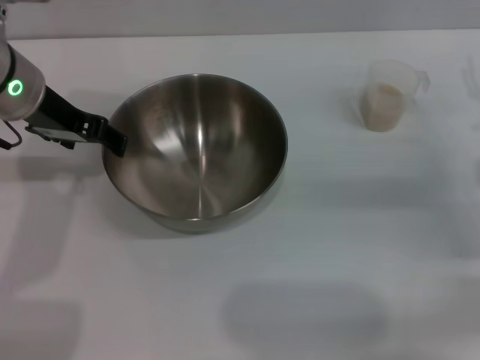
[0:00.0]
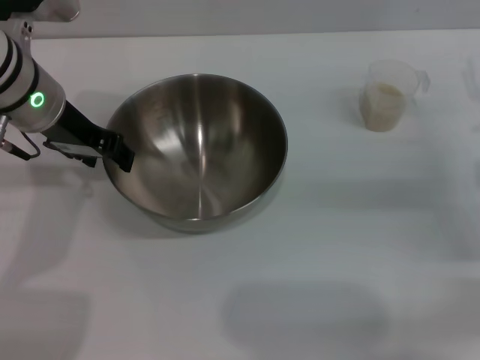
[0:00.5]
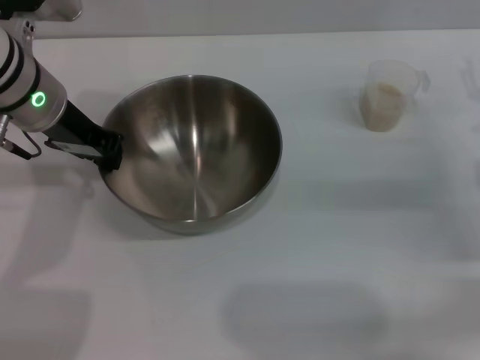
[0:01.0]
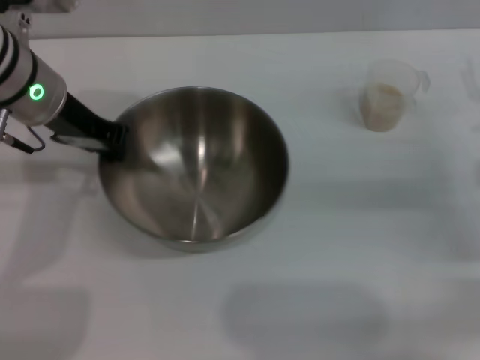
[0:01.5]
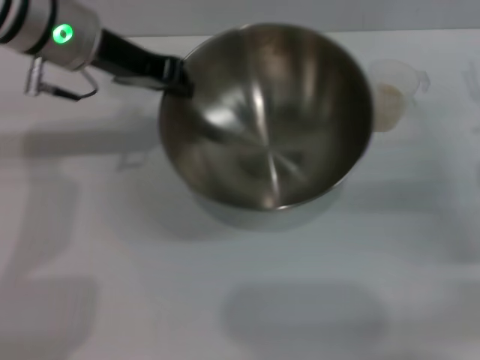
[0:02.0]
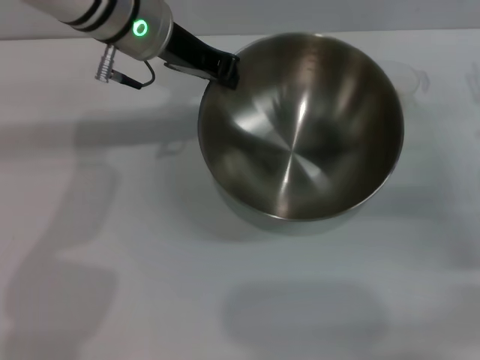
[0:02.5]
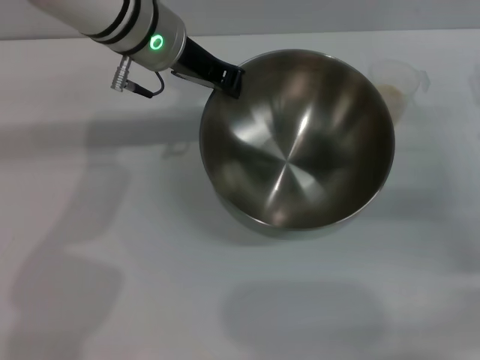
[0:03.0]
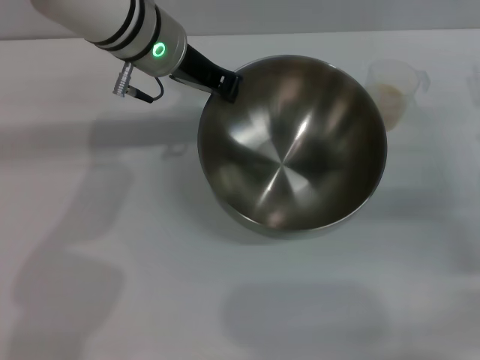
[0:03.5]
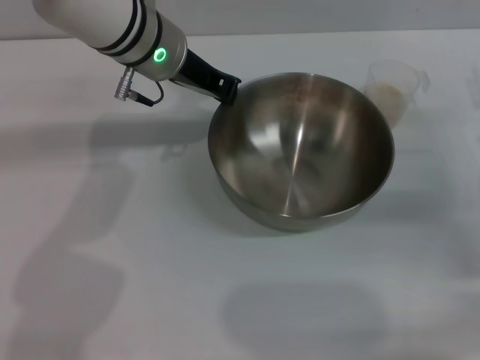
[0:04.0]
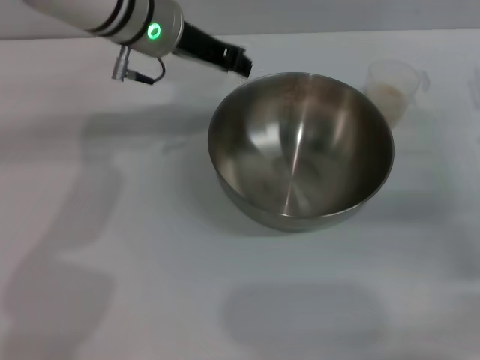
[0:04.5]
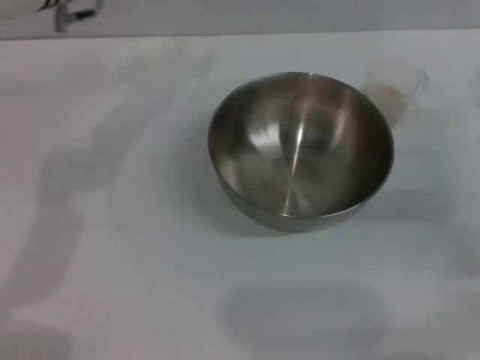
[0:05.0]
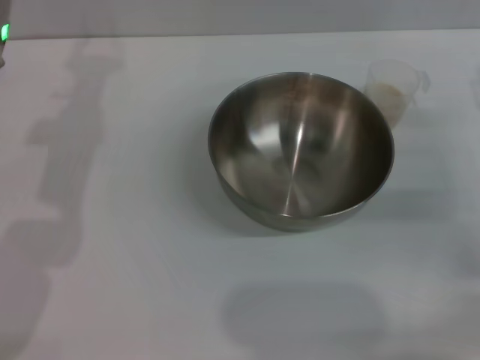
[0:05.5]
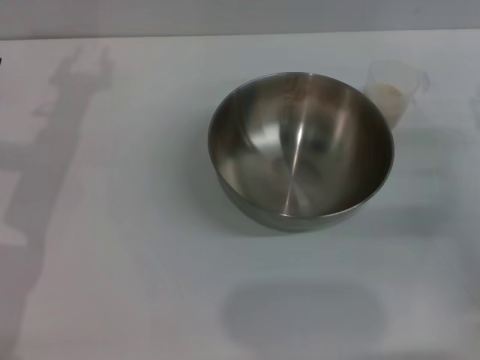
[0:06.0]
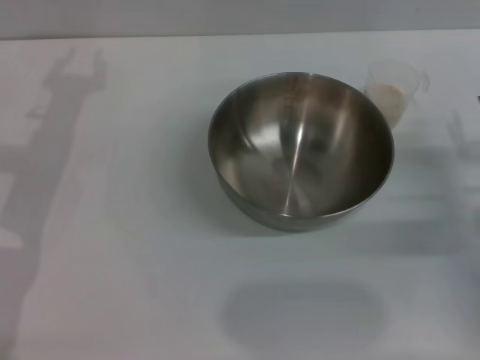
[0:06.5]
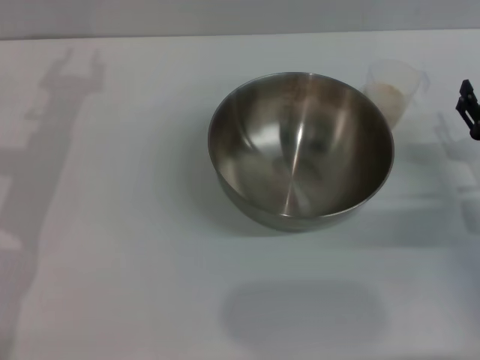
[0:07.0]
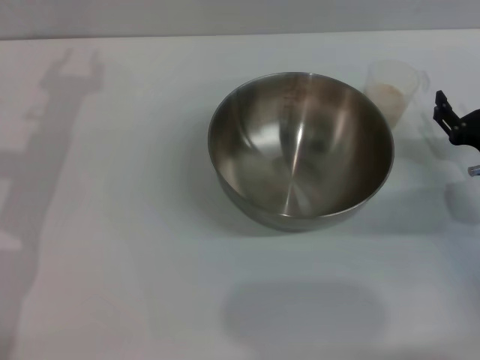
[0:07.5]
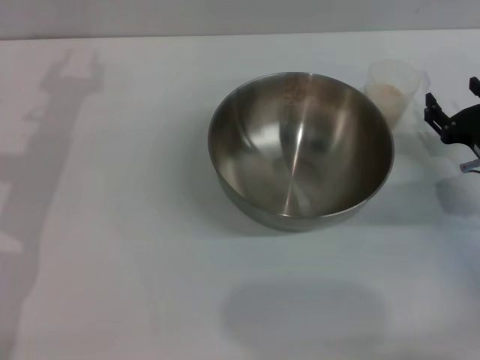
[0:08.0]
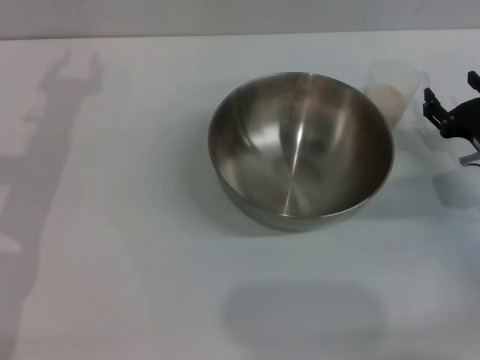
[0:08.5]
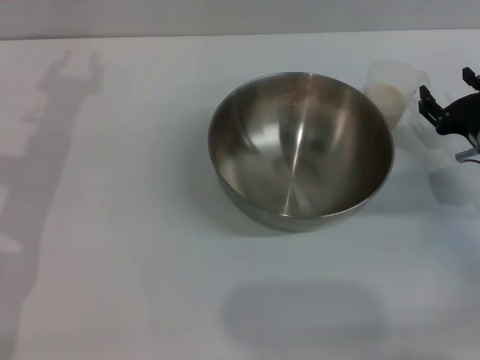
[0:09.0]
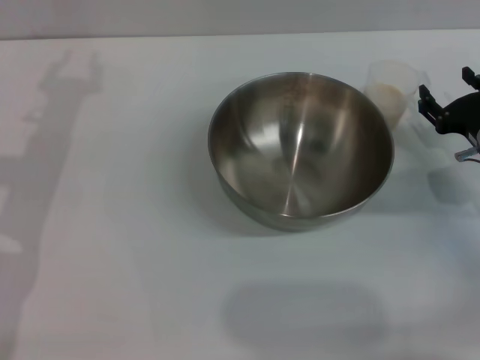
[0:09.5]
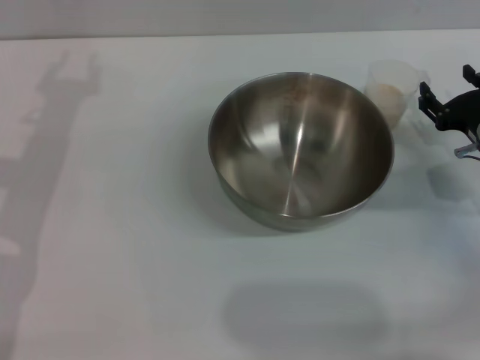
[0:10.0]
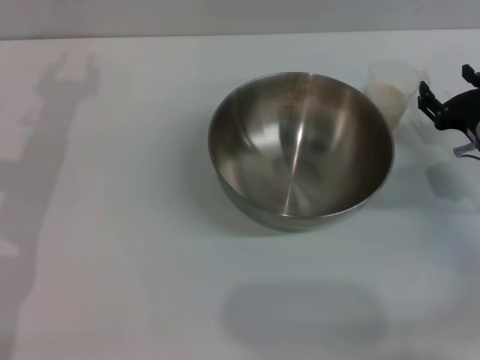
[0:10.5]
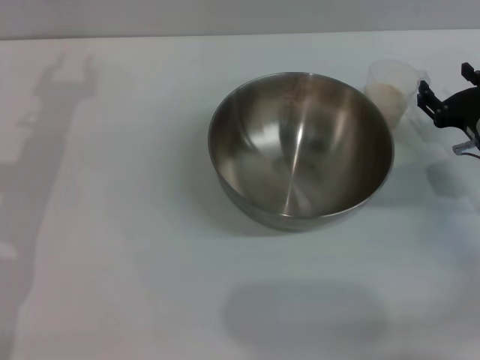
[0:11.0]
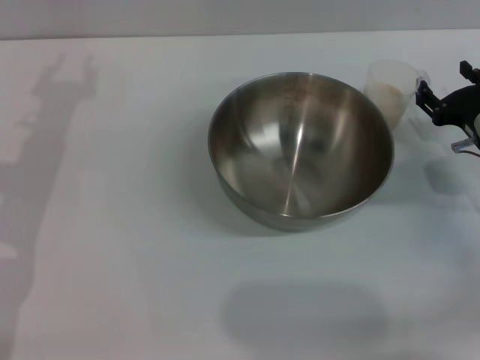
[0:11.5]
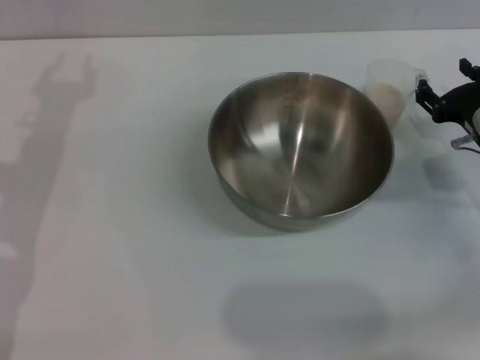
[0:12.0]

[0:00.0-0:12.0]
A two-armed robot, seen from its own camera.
Task of the whole recording: Place the bowl in the middle of the table with one hand and pour the rice from the grain cup into it with the other hand.
Step, 0:02.0 to 0:04.5: Place the bowl in the center of view with the left gripper.
0:00.0 to 0:02.0: The left gripper moves about 5 cm, and closes its fingers.
0:02.0 to 0:04.0: The left gripper moves to the right, roughly 5 cm.
0:04.0 to 0:06.0: The left gripper heads to the left, covering approximately 15 cm, and opens.
0:08.0 to 0:10.0: The grippers move only a little.
0:10.0 to 0:12.0: Neither gripper changes place.

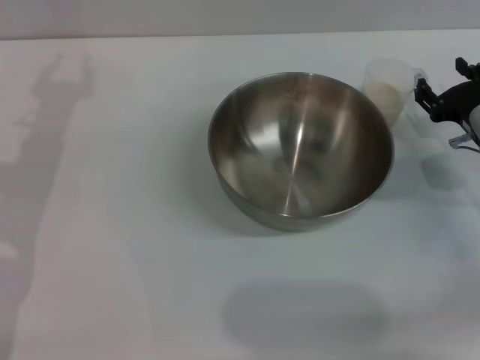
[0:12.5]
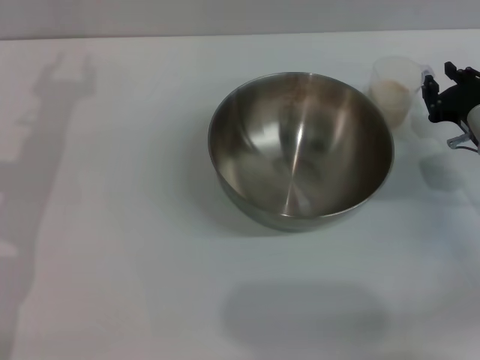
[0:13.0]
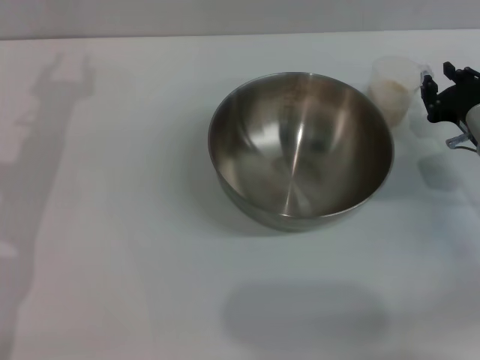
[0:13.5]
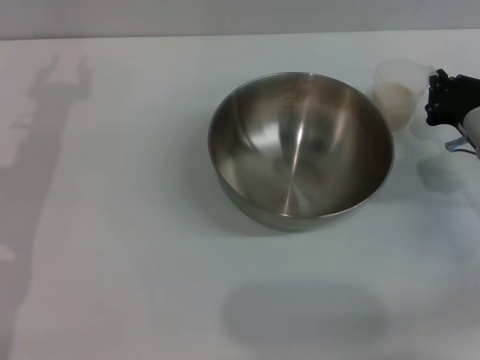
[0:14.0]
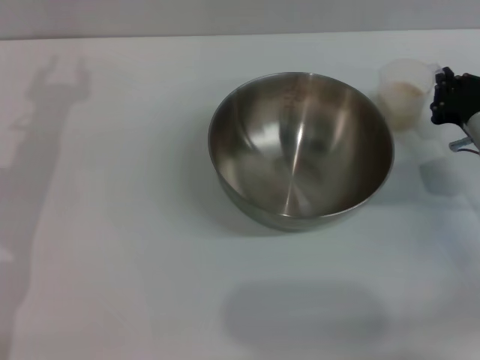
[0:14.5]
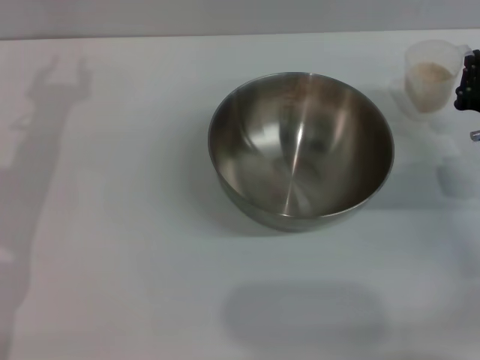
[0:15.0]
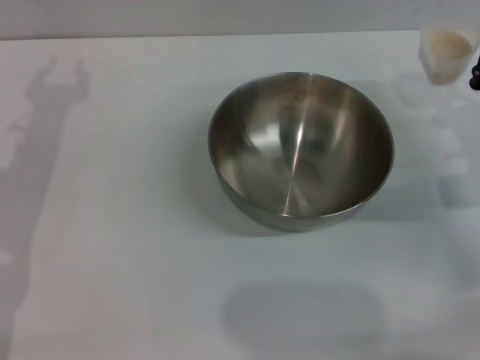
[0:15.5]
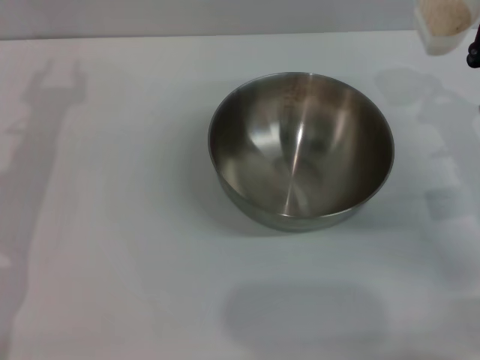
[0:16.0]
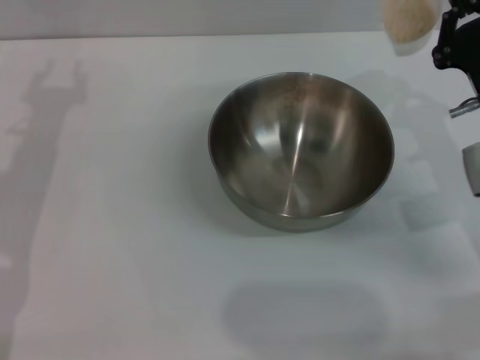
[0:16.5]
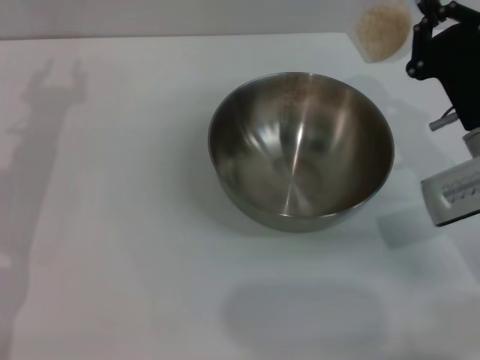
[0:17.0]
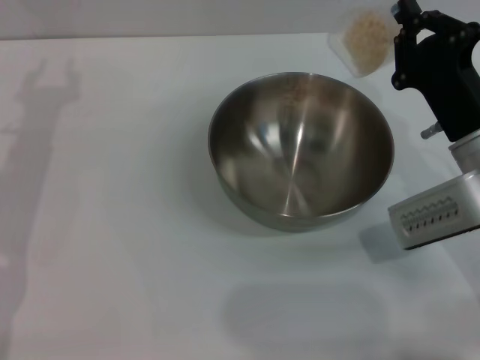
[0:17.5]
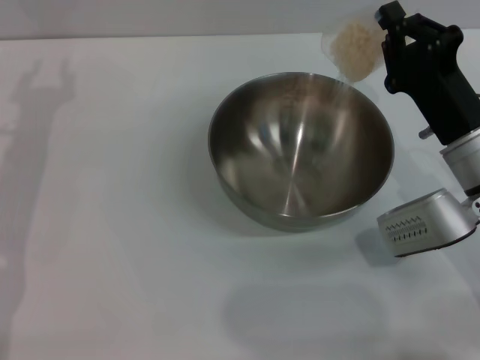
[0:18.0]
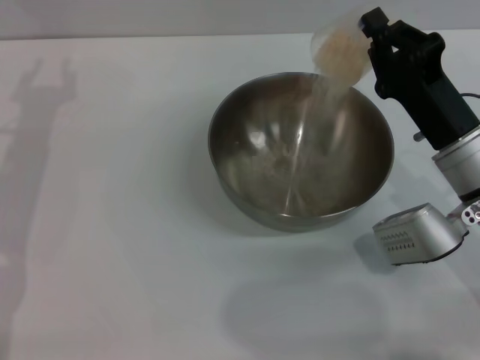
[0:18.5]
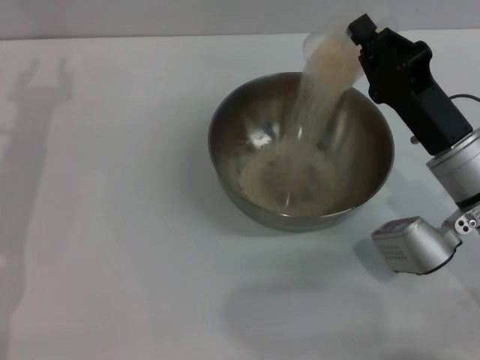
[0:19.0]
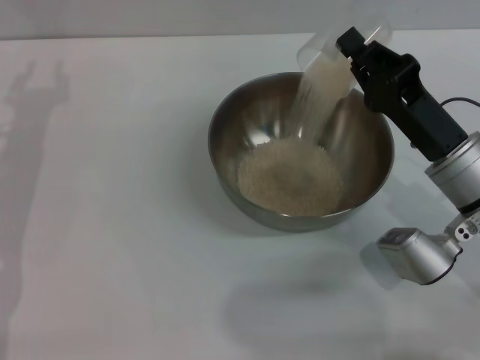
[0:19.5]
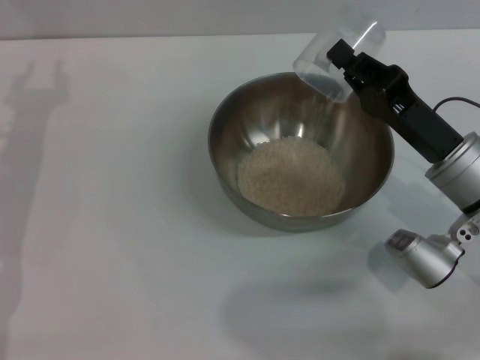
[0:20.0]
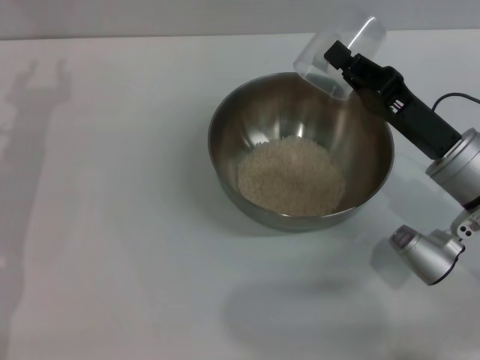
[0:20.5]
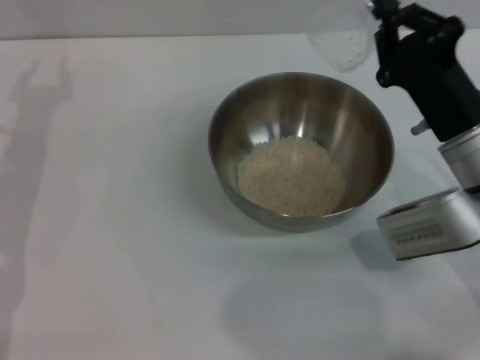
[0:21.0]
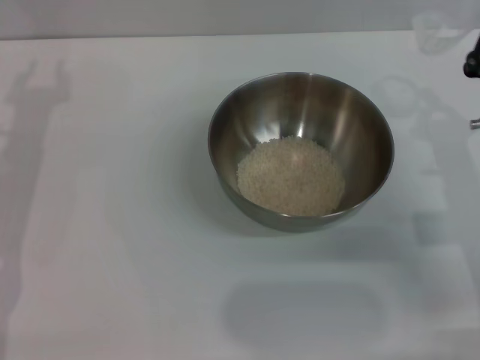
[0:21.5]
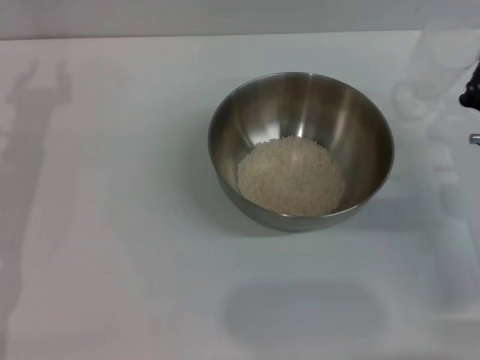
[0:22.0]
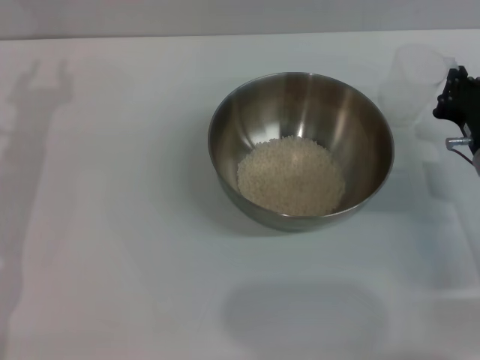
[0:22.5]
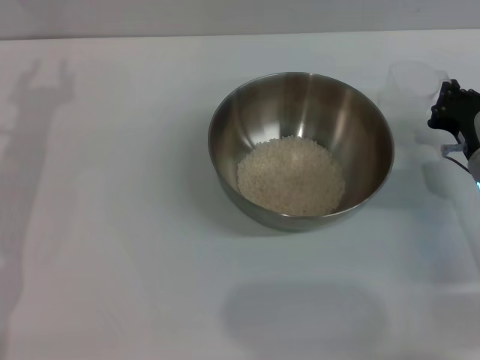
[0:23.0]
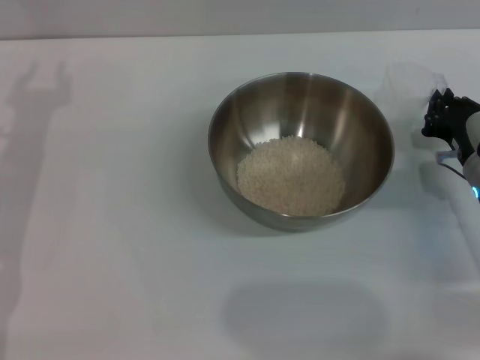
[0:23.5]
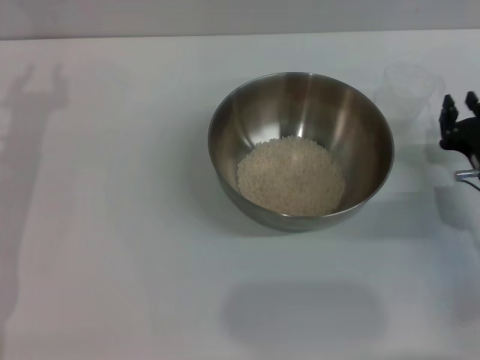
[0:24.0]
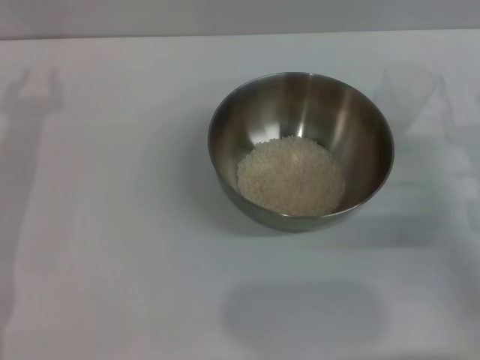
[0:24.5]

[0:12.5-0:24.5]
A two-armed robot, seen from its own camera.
Task of the whole recording: Place the bowl in the middle of the table with one hand and pour the rice from the grain cup into it with the other hand.
Step, 0:12.5 to 0:15.0: Pick up the cup with rice in it with the right gripper.
Step, 0:16.0 to 0:20.5: Pour the rice from the cup into the bowl with the right gripper.
Step, 0:21.0 to 0:23.5: Place the cup on the table with the right gripper.
0:12.5 to 0:14.5: The right gripper closes its fingers.
0:14.5 to 0:16.5: The right gripper shifts by some 5 cm.
0:20.5 to 0:22.5: The right gripper is displaced to the right by roughly 5 cm.
0:22.5 to 0:24.5: The right gripper ends up roughly 5 cm from where it was, and opens up.
